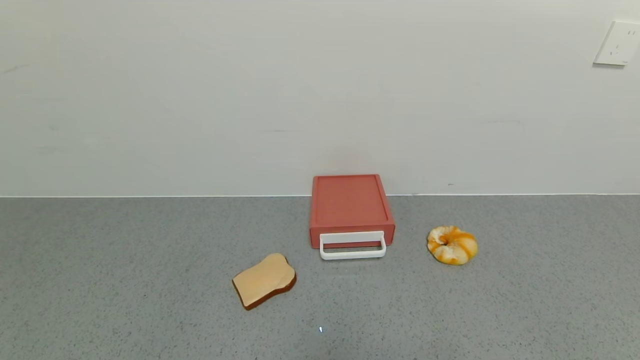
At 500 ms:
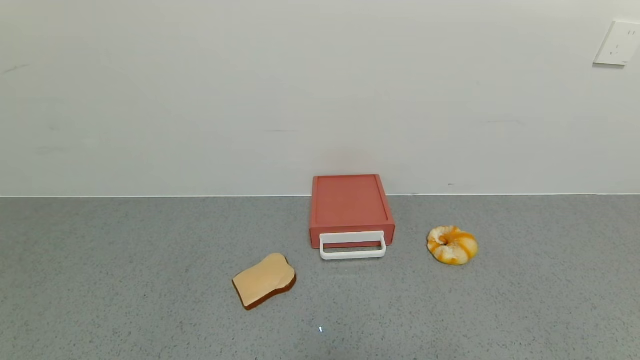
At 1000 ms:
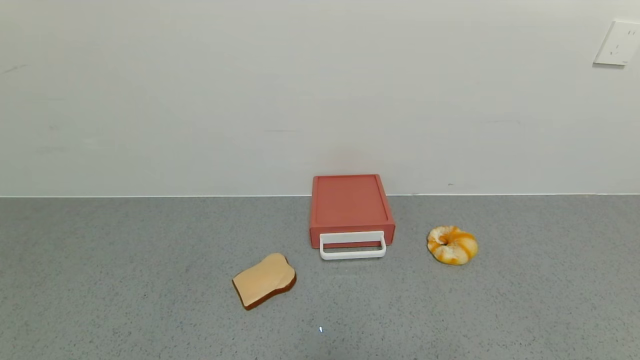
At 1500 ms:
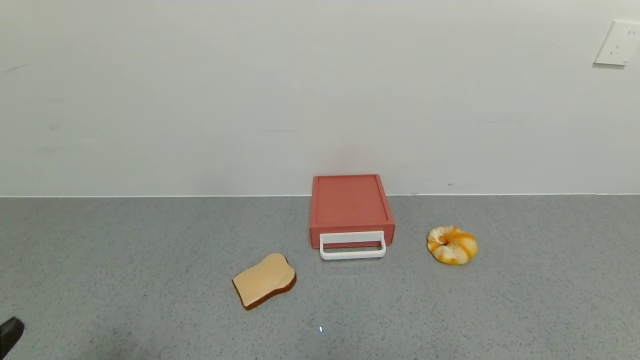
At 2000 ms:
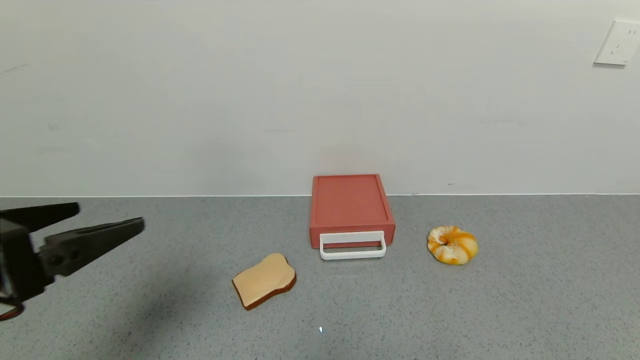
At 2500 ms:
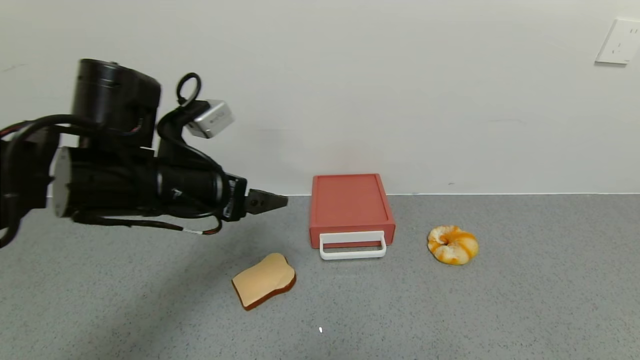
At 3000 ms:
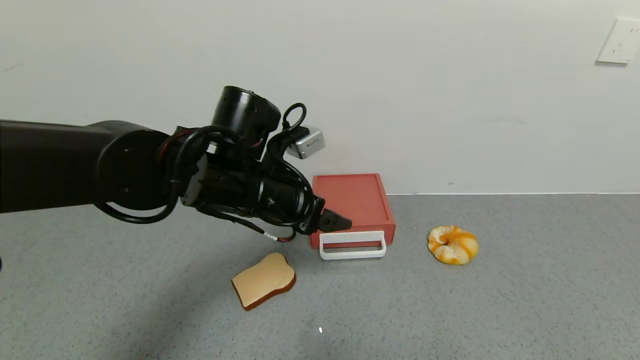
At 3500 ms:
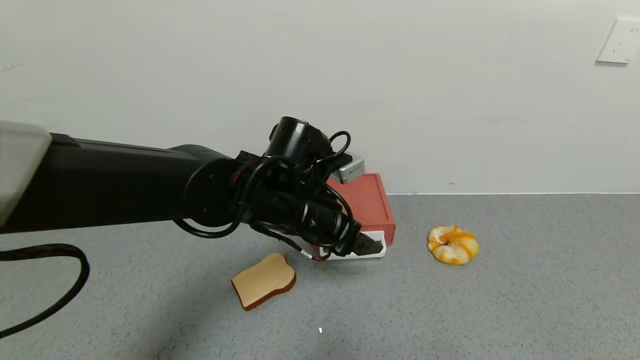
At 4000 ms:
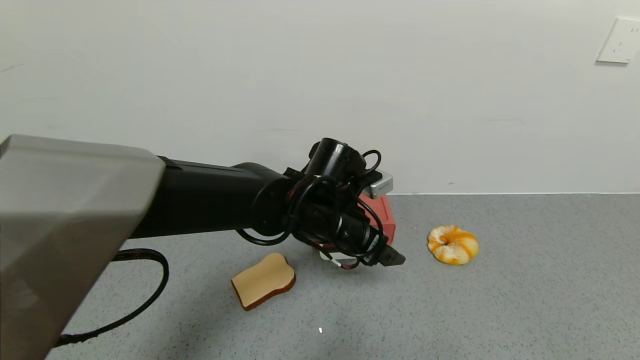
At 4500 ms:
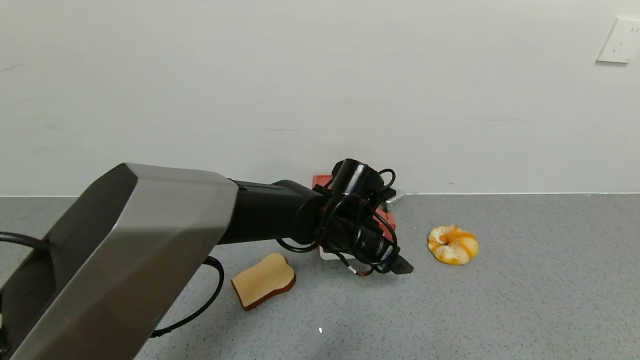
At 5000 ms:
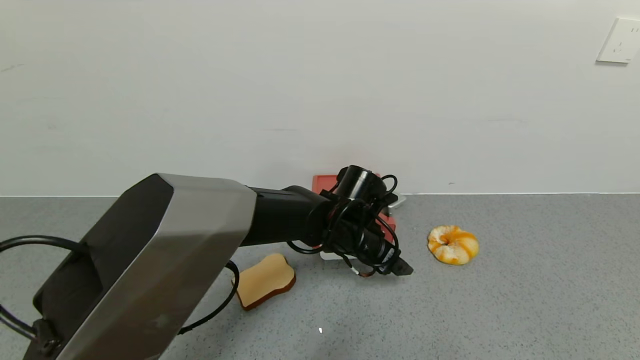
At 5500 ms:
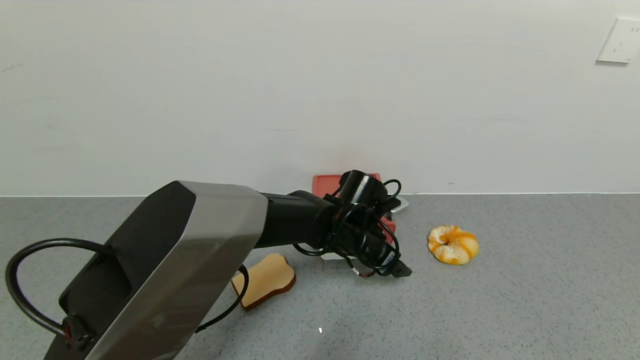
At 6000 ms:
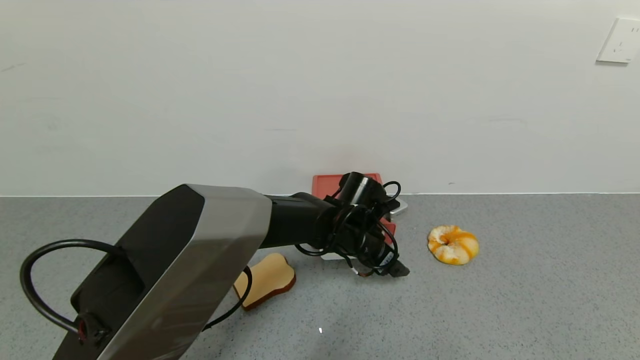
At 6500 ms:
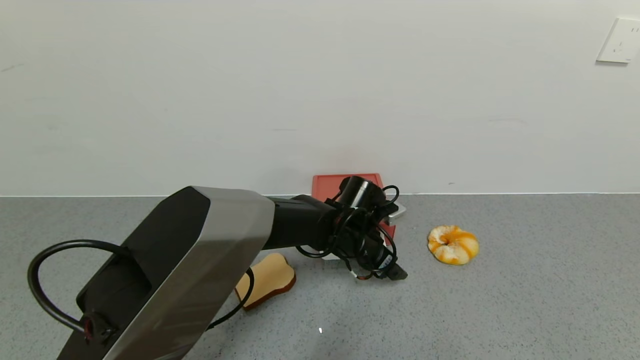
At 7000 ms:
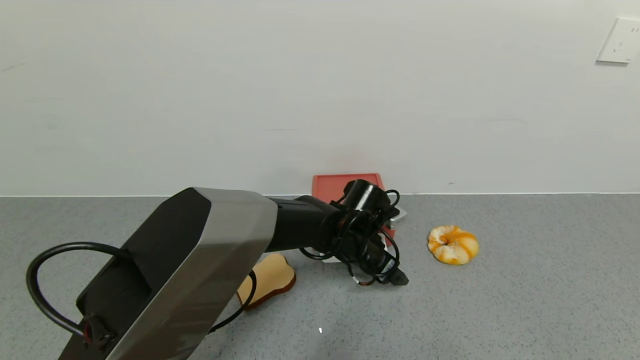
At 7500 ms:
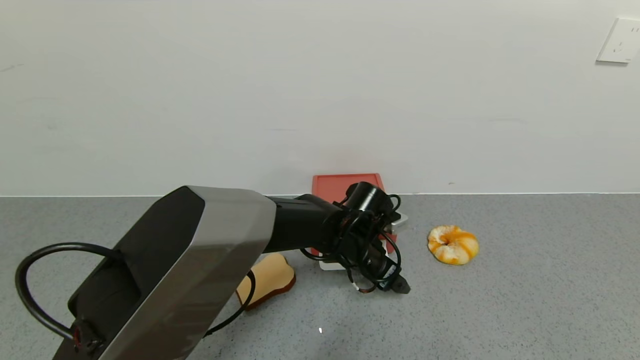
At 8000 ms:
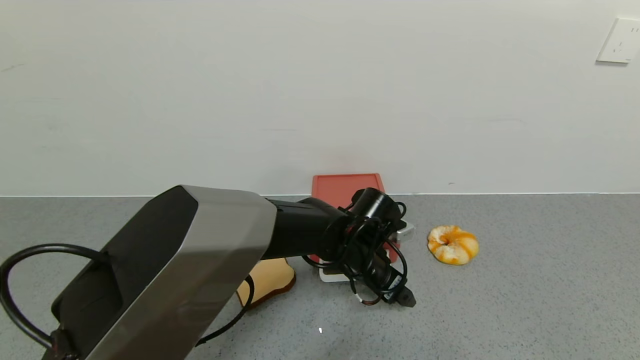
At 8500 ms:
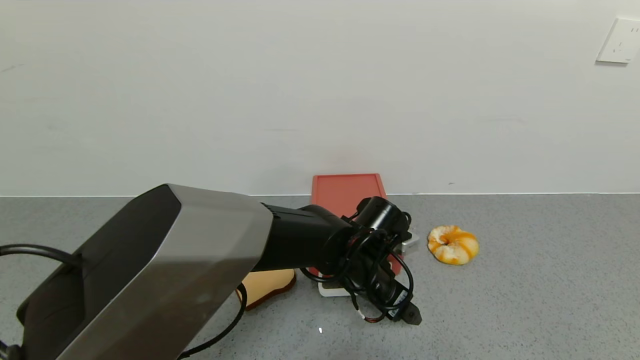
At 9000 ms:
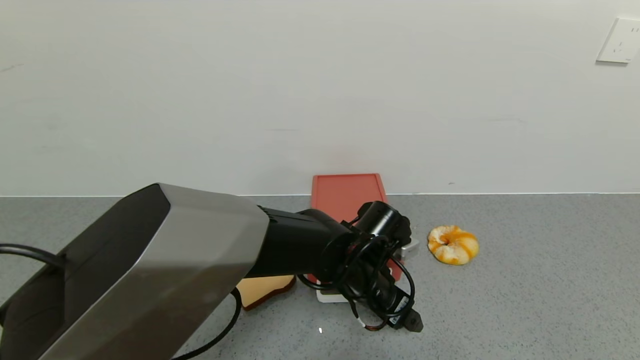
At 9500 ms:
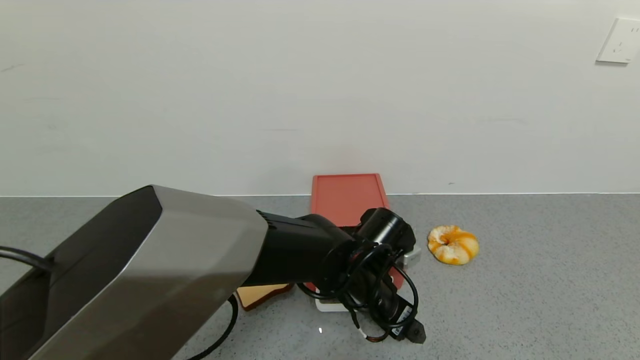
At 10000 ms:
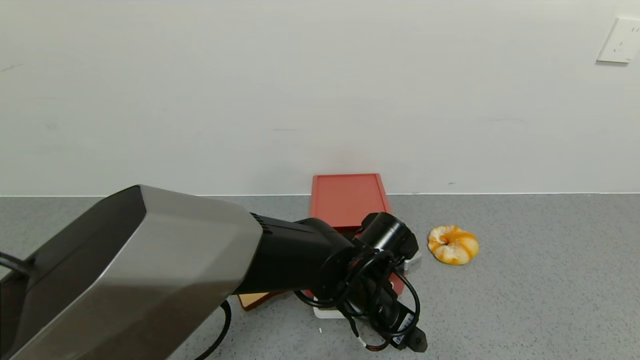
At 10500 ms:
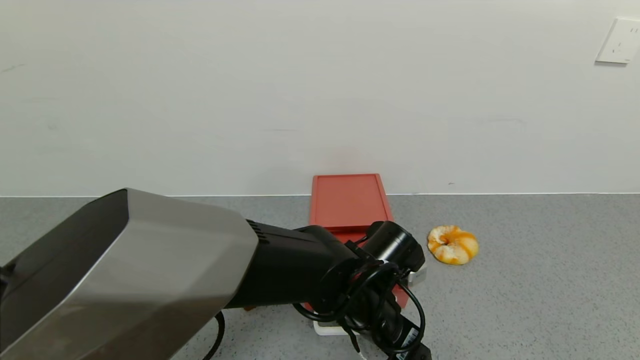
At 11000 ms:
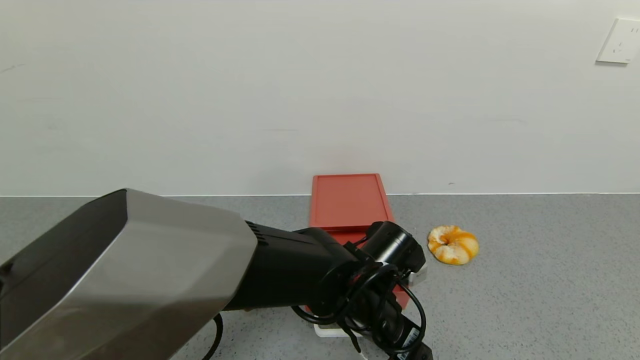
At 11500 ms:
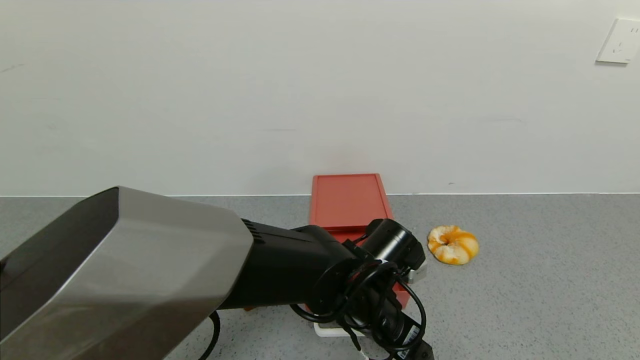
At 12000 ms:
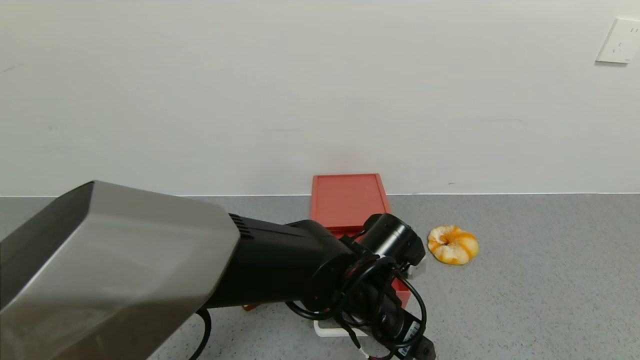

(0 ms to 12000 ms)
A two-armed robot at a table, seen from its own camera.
Task of the whole recording: use the gripper to open the drawer and close the red drawer.
0 ms - 2000 ms: The left gripper is displaced upward and forward by roughly 20 cm.
2000 ms - 4000 ms: The left gripper heads to the right and forward, covering some 35 cm.
4000 ms - 6000 ms: The left gripper goes approximately 5 cm downward.
6000 ms - 8000 ms: The grippers move only a little.
8000 ms - 10000 ms: The left gripper travels backward by about 5 cm.
10000 ms - 12000 ms: The grippers make only small movements.

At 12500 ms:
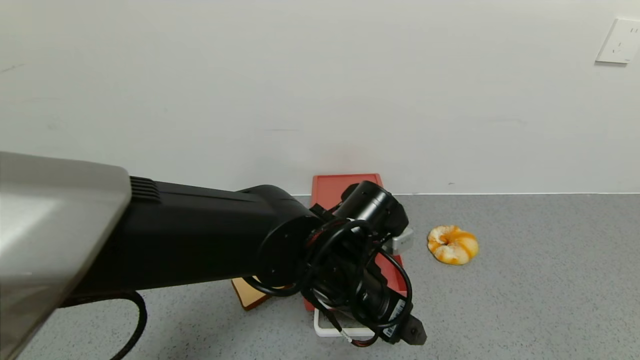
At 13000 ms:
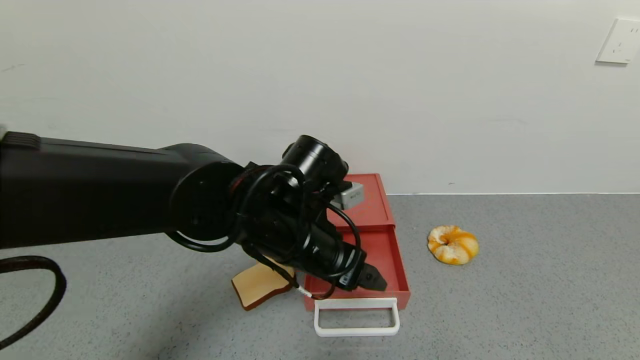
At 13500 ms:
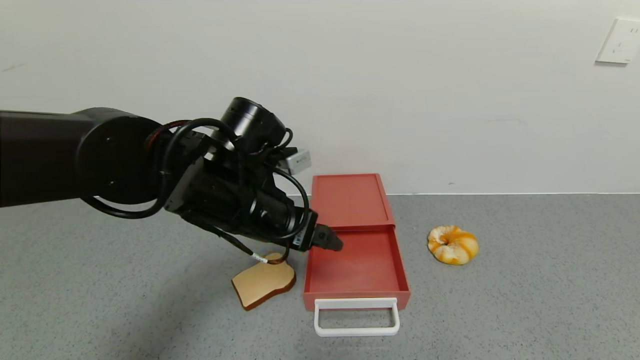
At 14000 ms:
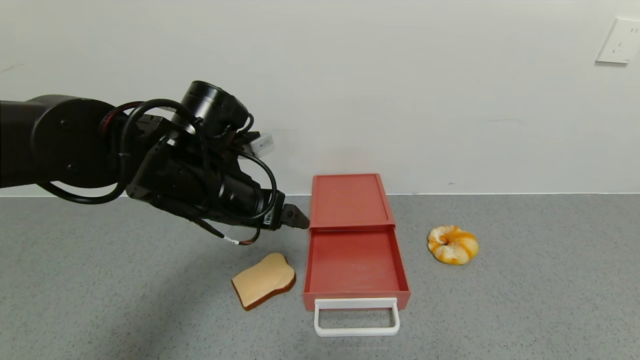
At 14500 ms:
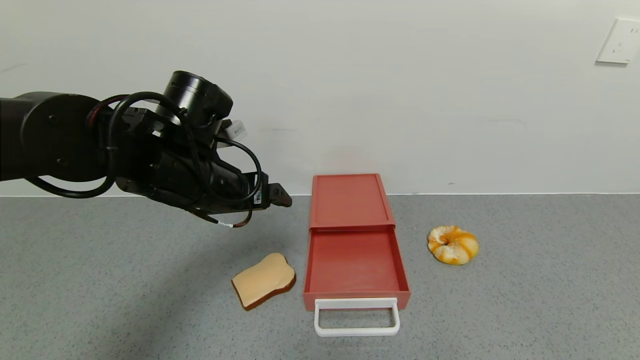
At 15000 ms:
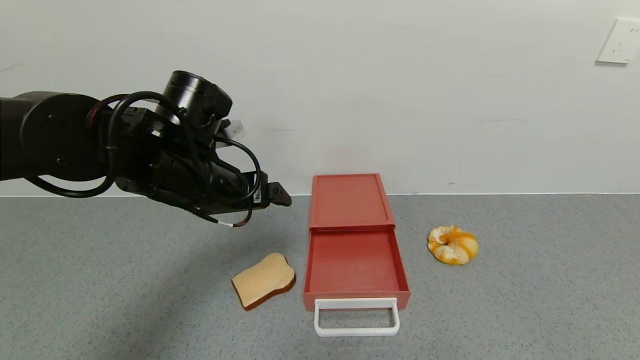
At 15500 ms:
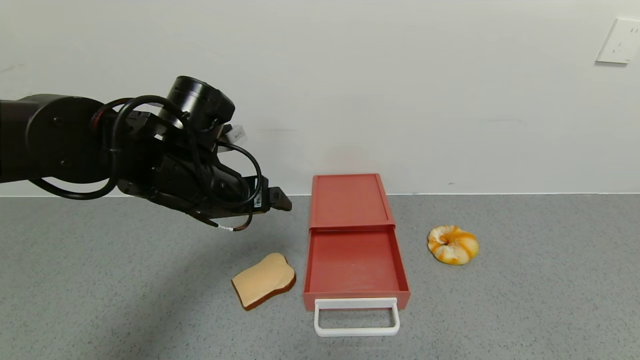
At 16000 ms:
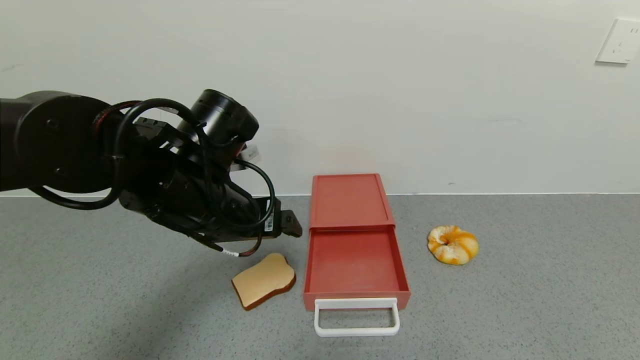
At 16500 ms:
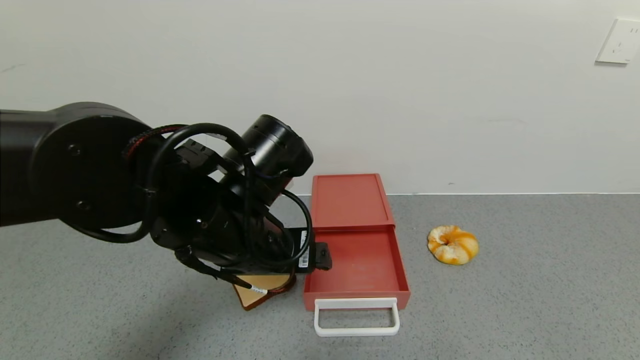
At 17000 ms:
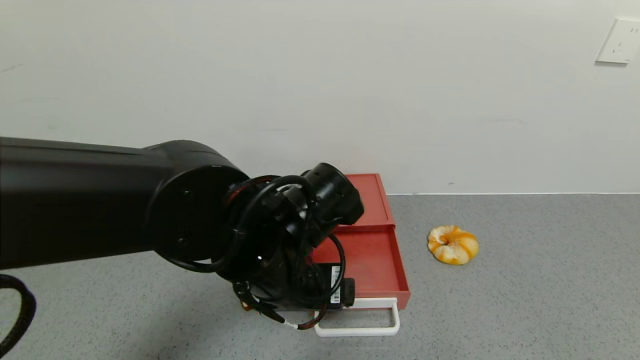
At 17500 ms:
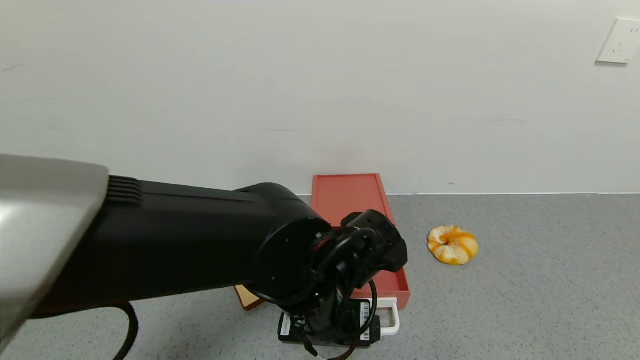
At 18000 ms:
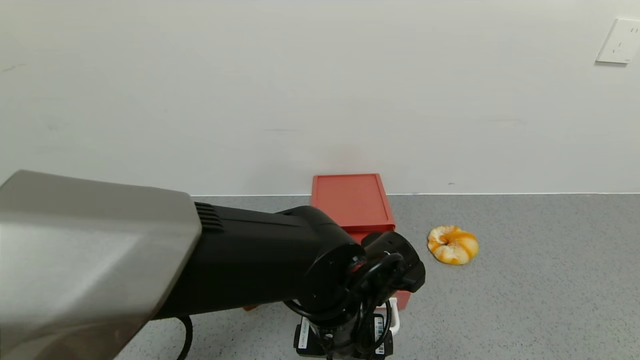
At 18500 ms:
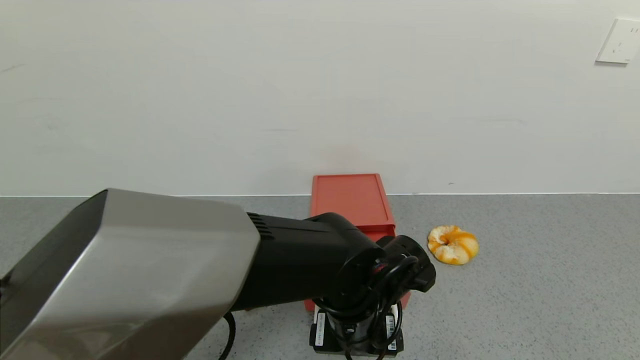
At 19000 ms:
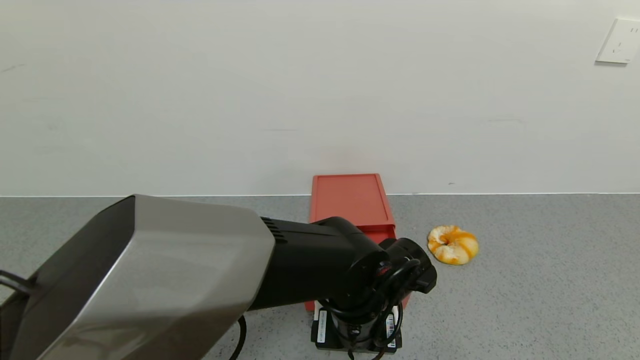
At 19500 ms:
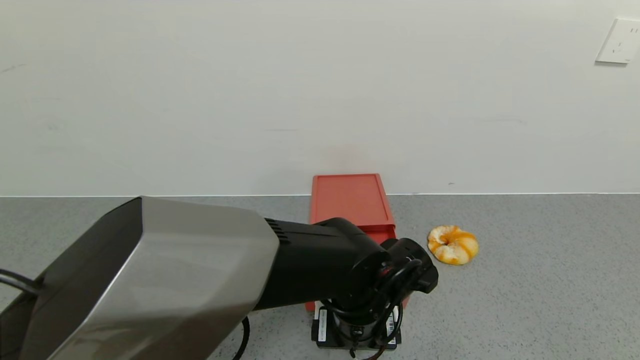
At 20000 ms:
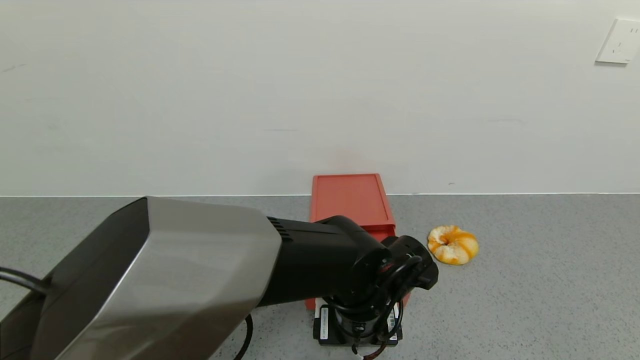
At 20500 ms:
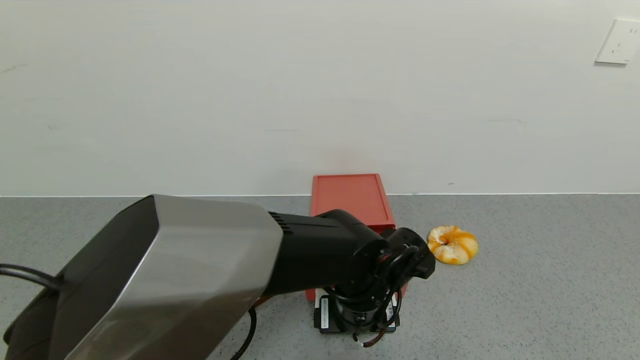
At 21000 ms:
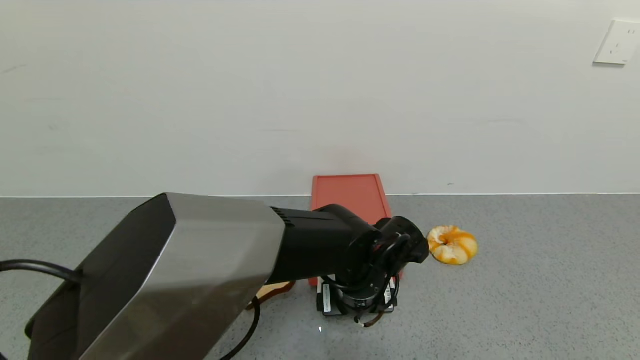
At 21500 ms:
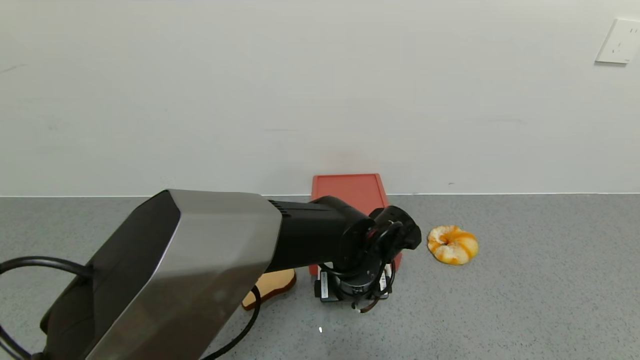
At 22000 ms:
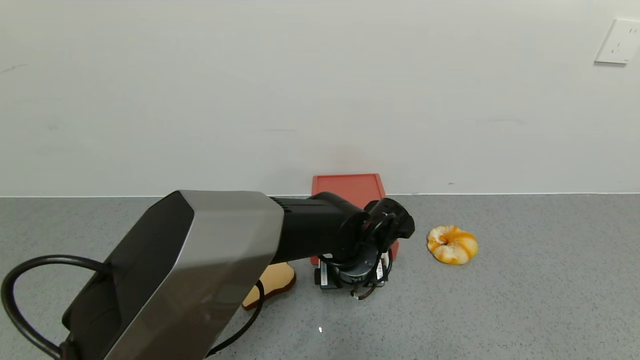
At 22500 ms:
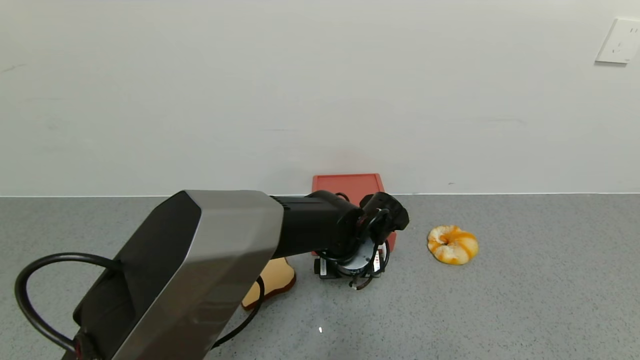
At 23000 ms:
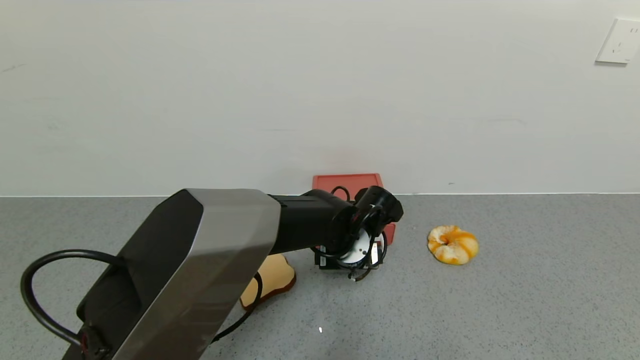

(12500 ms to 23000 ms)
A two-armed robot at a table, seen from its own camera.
Task of the whole recording: use the gripper to open the drawer and close the red drawer.
12500 ms - 14500 ms: The left gripper travels to the left and upward by roughly 20 cm.
14500 ms - 16500 ms: The left gripper heads to the right and backward, covering about 10 cm.
16500 ms - 19000 ms: The left gripper shifts approximately 15 cm downward and to the right.
19000 ms - 21000 ms: There are only small adjustments of the grippers.
21000 ms - 23000 ms: The left gripper is displaced forward by roughly 5 cm.
